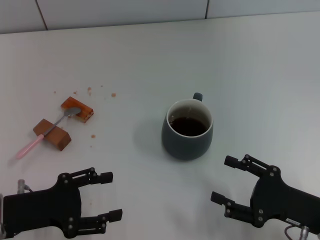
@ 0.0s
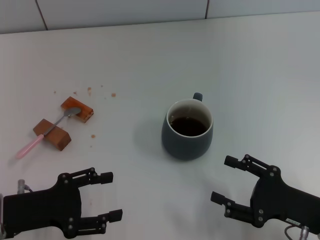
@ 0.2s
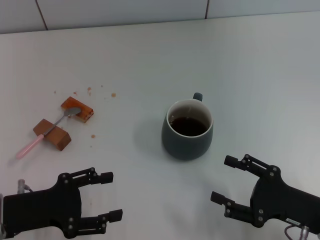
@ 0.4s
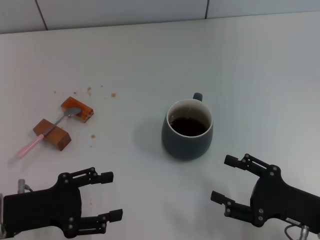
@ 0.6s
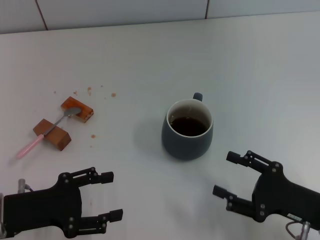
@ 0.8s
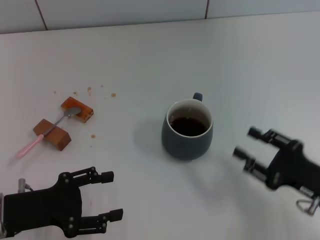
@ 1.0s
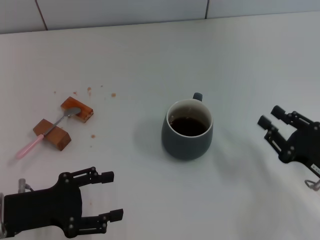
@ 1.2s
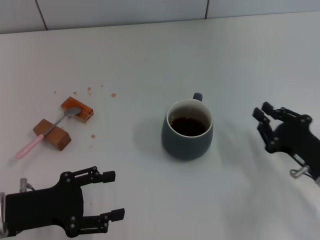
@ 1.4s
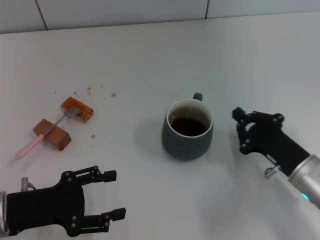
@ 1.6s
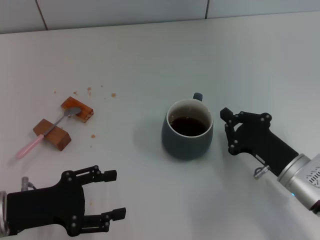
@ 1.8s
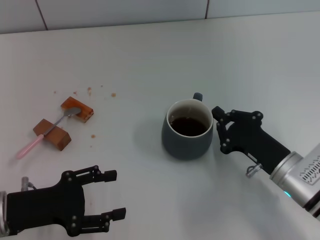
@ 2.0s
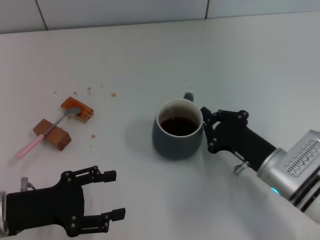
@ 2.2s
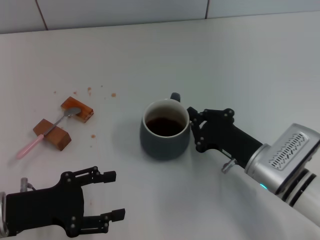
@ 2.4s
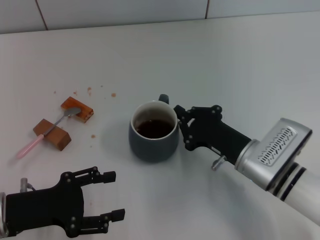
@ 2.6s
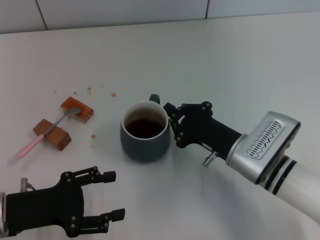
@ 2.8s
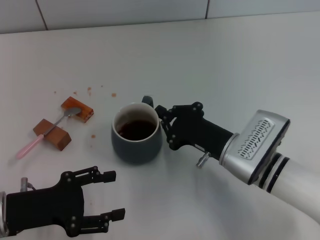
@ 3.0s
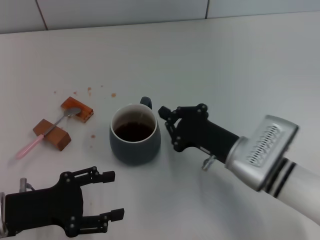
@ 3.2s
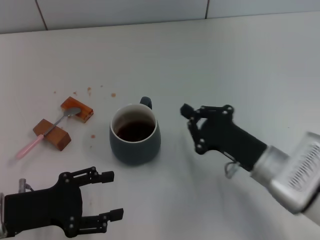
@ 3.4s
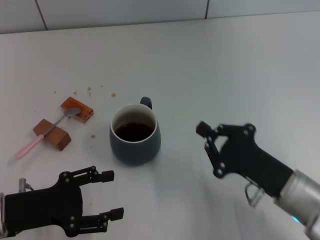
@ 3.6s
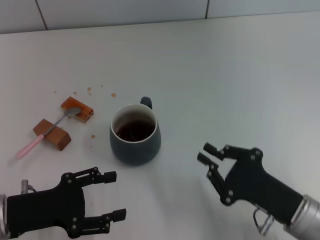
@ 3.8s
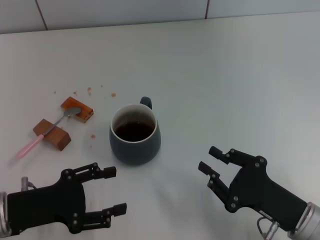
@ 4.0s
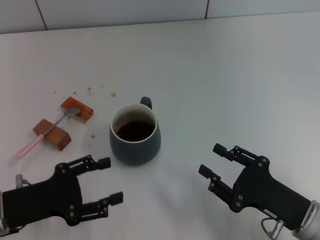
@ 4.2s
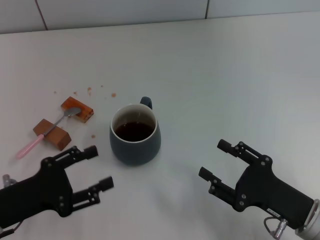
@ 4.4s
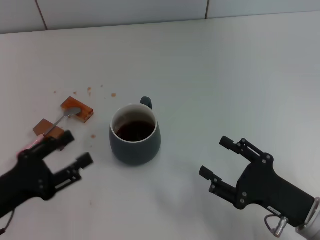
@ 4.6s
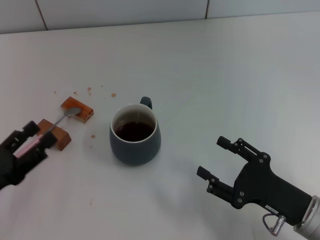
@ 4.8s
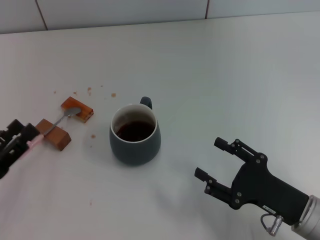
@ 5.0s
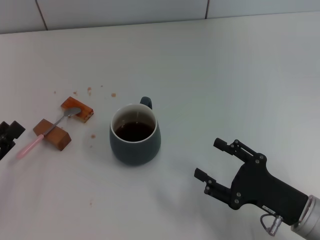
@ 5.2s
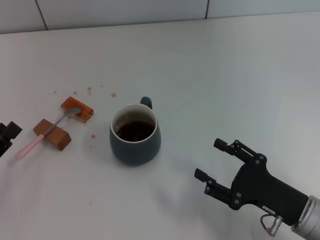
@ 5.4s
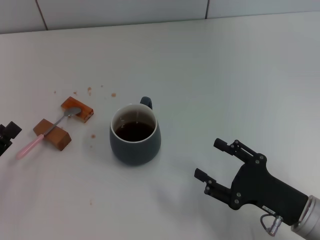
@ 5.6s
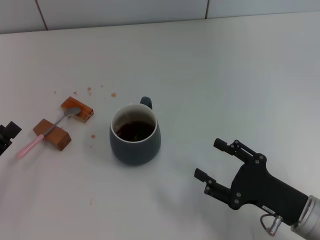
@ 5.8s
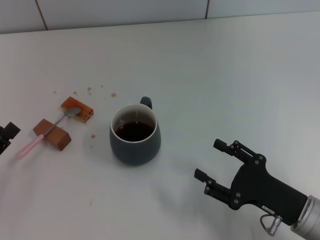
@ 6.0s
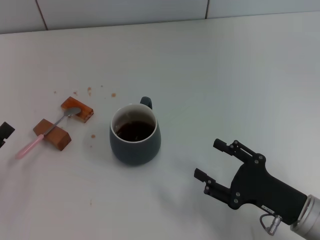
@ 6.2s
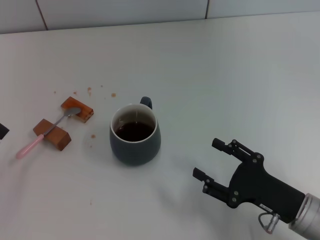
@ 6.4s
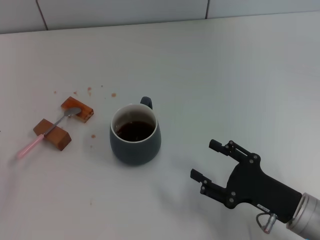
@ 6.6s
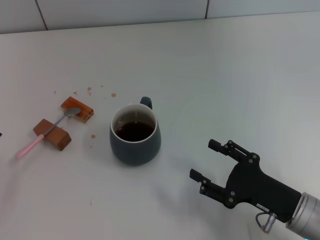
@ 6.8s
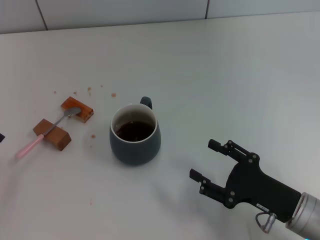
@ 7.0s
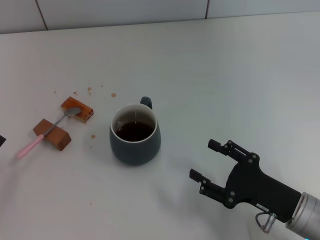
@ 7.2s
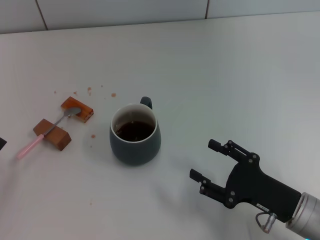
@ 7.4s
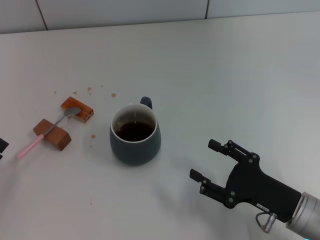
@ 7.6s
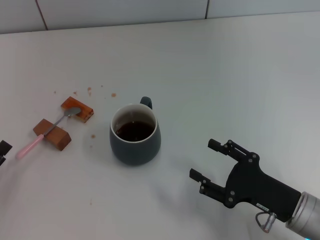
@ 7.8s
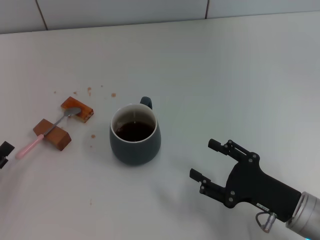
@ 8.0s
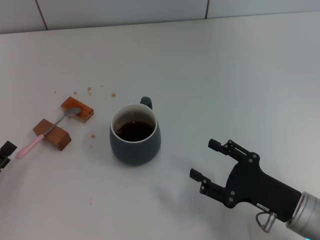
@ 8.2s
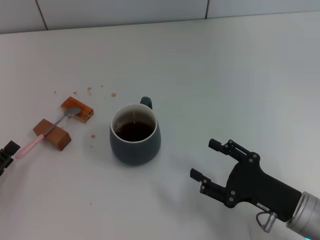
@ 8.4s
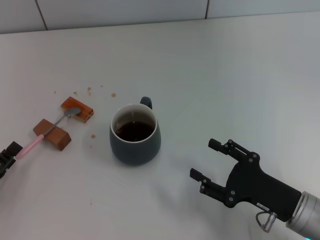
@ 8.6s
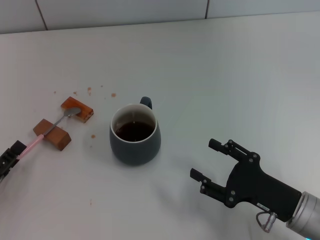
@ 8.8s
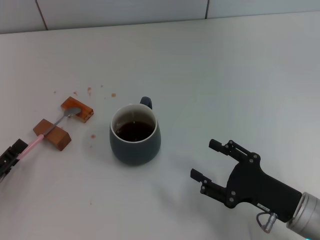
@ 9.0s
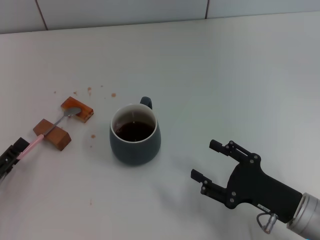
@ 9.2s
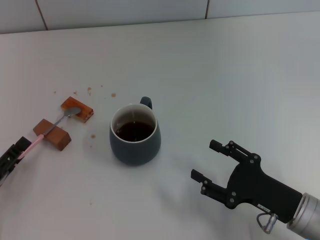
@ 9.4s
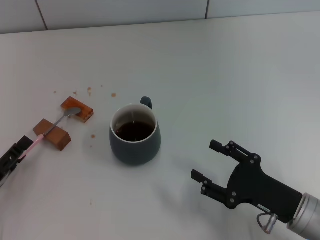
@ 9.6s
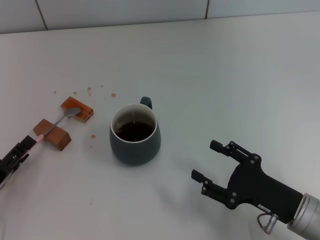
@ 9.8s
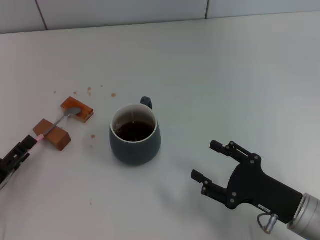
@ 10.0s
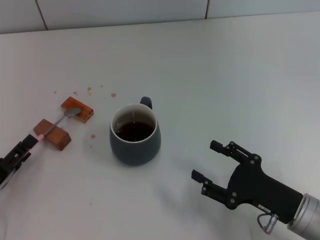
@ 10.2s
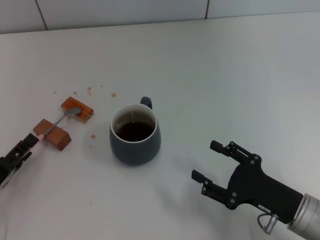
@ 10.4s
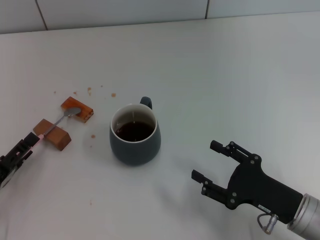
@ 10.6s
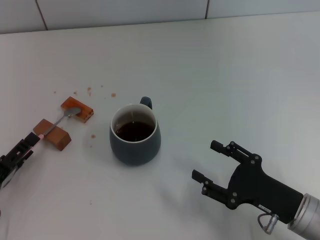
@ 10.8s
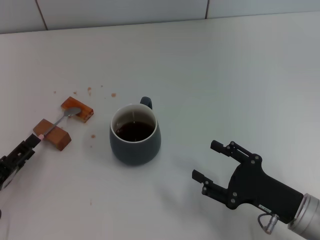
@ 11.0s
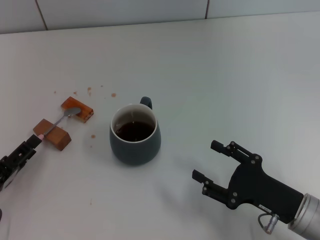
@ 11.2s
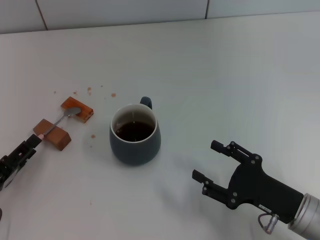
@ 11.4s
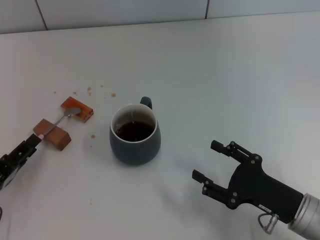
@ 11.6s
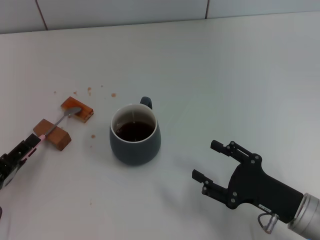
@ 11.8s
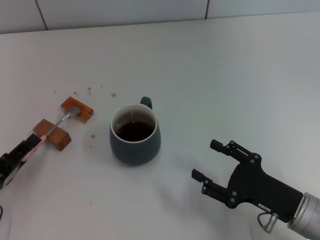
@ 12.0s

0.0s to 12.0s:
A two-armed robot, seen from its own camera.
Task of the whole recording: Move the grey cup to the center, lift the pink spoon, stir it three times in the cup, and put the spoon into the cup.
Step, 0.0s to 3.4s: Move the cup with coffee to the center of view with the right gripper.
0.0s to 1.6s: The right gripper travels forward by approximately 5 cm, and closes up.
1.6s to 3.0s: The right gripper goes approximately 10 cm to the left.
3.0s to 4.4s: The right gripper travels backward and to the right by roughly 15 cm, and opens up.
4.4s to 6.0s: The left gripper shifts some 5 cm to the left, while the right gripper opens up.
6.0s to 9.0s: There are only small adjustments of the grippers.
9.0s to 10.4s: The grippers stay close to where they were, moving slightly.
10.4s to 12.0s: Both grippers stay about where they are.

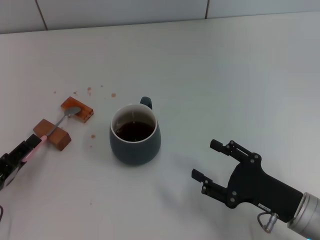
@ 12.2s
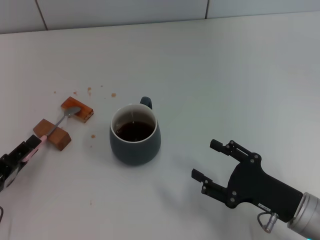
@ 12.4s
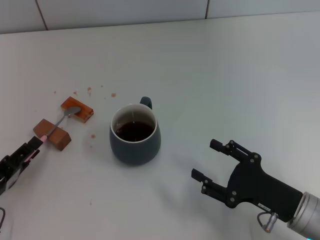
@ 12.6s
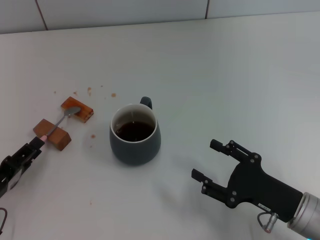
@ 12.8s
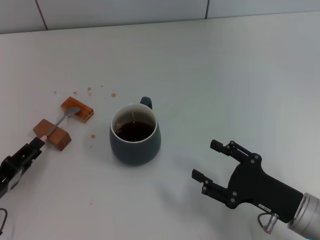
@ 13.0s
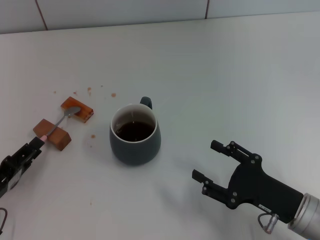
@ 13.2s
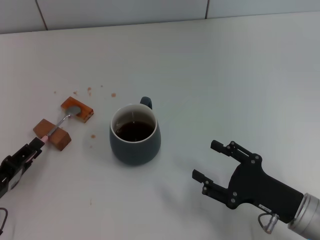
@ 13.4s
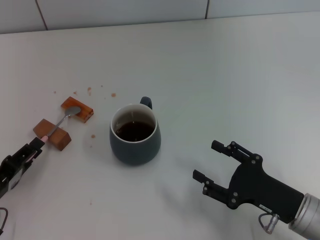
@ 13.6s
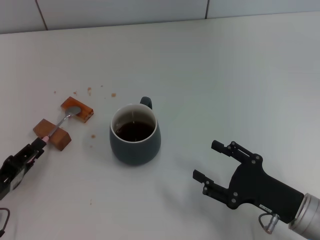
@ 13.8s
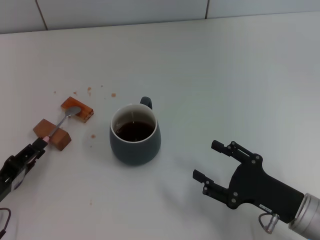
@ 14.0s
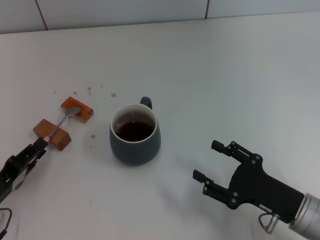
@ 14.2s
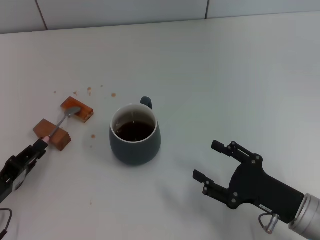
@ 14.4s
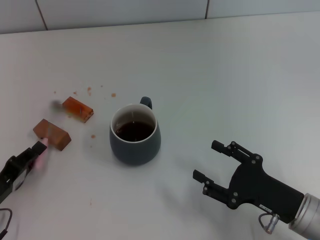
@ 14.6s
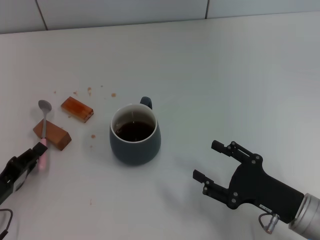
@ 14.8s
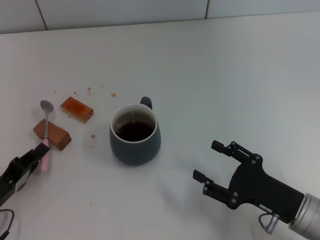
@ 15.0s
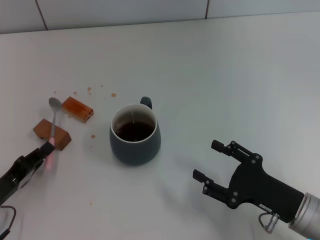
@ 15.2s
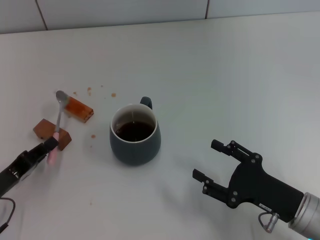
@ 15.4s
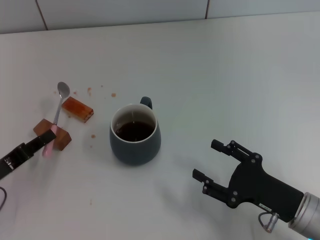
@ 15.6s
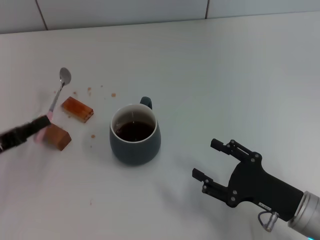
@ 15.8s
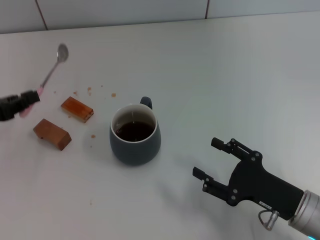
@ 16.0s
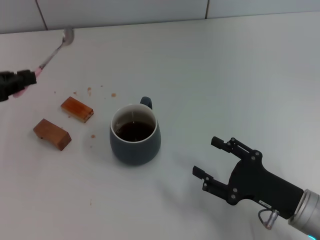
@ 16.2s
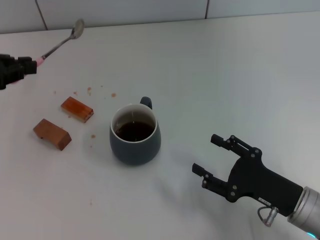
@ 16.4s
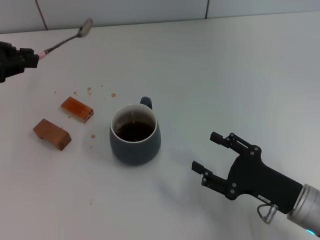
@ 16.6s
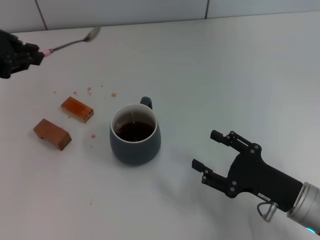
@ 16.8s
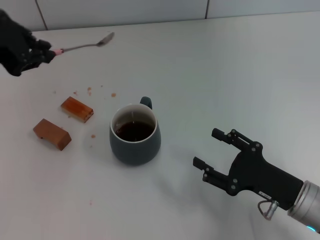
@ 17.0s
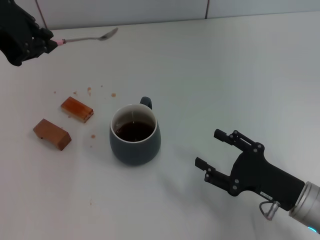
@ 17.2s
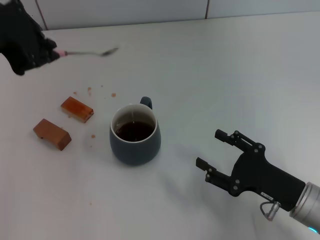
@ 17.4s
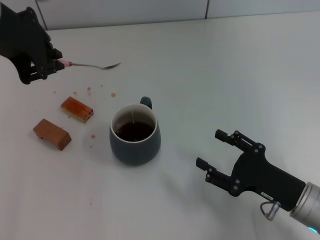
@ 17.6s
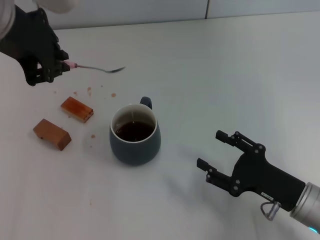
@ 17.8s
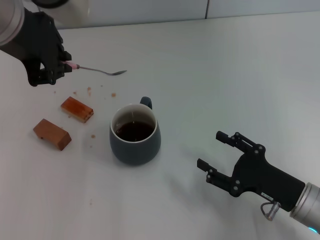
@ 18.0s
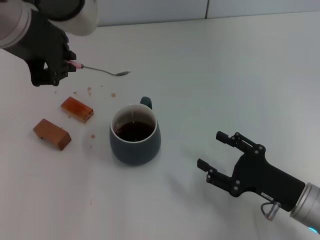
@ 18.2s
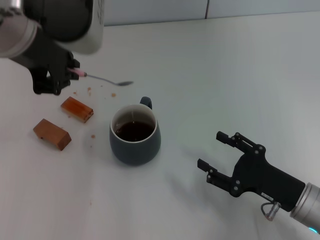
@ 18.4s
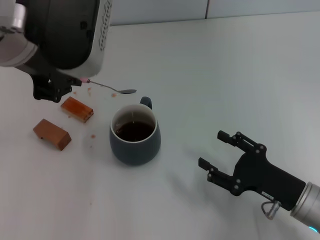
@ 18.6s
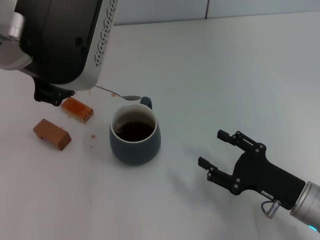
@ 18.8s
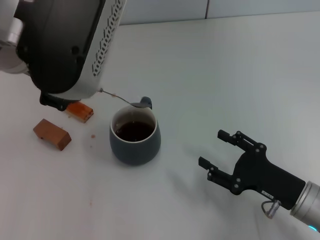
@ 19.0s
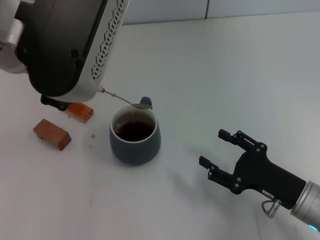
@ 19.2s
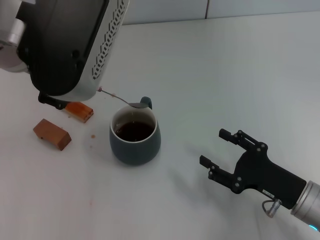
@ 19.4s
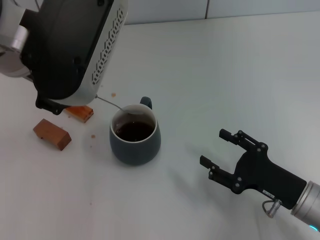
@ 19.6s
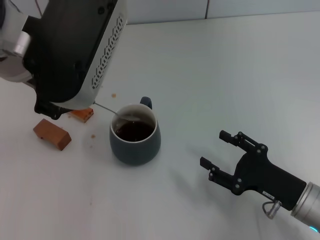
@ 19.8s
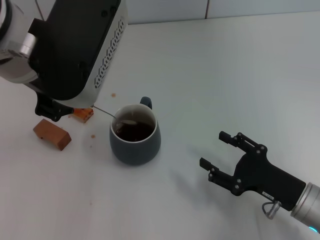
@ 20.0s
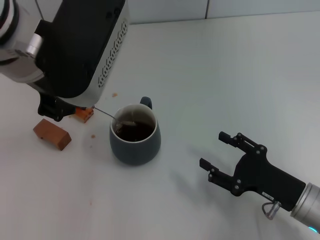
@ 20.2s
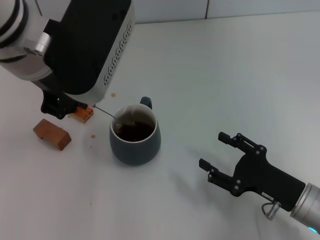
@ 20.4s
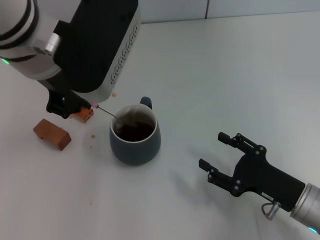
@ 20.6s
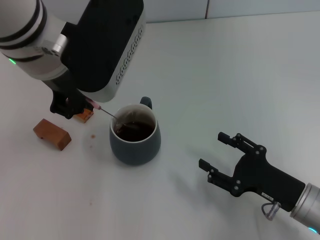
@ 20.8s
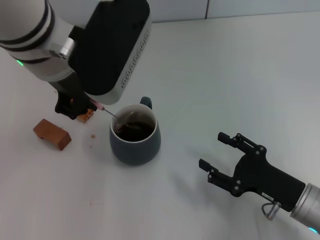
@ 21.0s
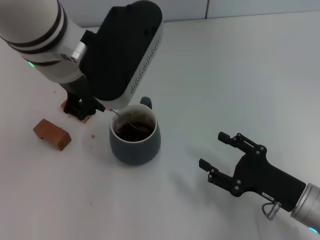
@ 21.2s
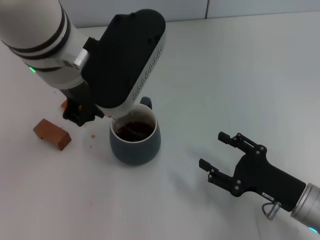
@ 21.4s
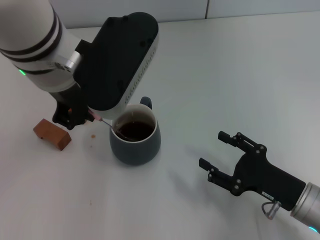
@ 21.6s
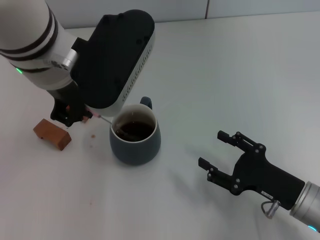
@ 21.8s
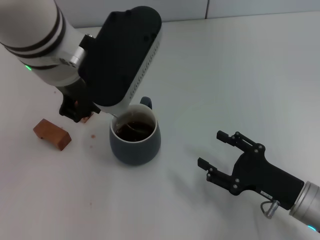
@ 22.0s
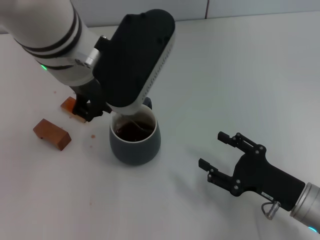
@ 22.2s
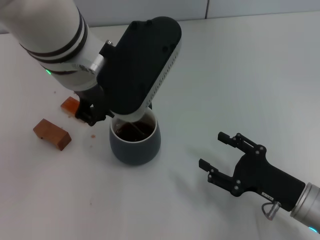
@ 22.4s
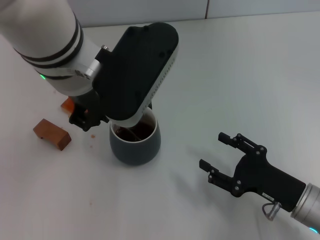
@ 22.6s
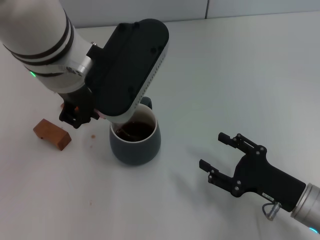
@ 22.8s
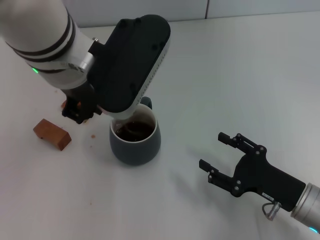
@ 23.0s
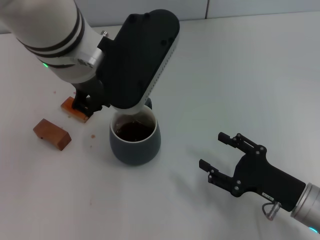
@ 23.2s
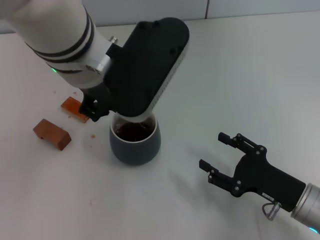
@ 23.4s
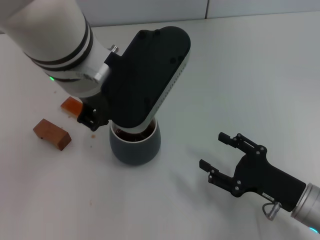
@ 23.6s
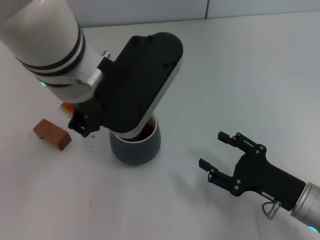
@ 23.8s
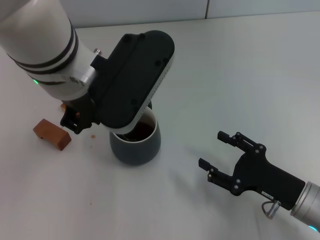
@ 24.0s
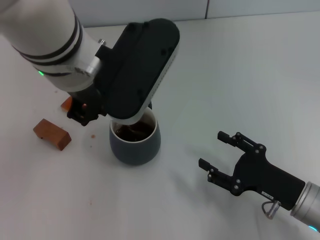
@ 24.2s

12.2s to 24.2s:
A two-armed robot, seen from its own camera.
Task of the whole recording: Move the grey cup to the center, lift the pink spoon, stir it three times in the cup, and put the spoon into the cup.
Step, 12.2s to 15.8s: Pick up the spoon with the left gripper.
12.2s to 15.2s: Both grippers stay about where they are.
15.2s to 16.6s: The left gripper travels upward and forward by some 25 cm.
16.6s to 18.2s: The left gripper is displaced to the right and upward by approximately 20 cm.
19.8s to 21.2s: The left gripper shifts by about 5 cm.
21.2s to 22.6s: There are only small adjustments of the grippers.
22.6s to 24.2s: Both grippers stay about where they are.
